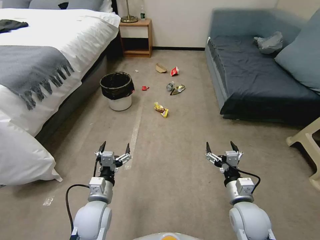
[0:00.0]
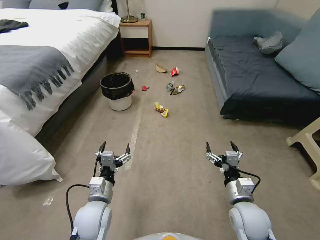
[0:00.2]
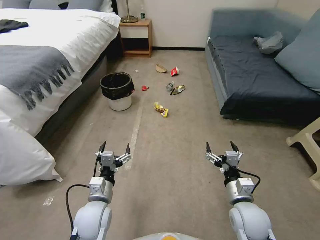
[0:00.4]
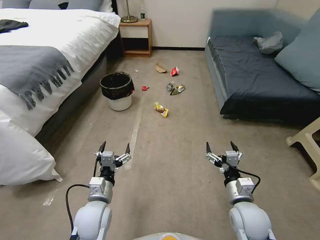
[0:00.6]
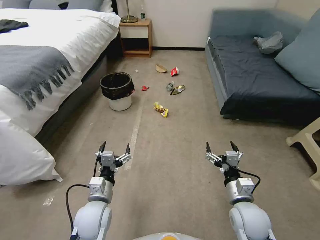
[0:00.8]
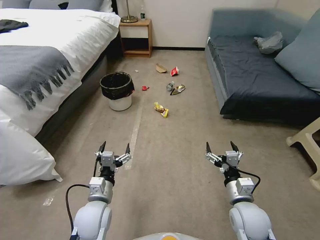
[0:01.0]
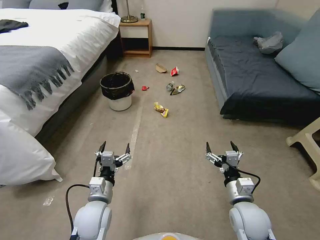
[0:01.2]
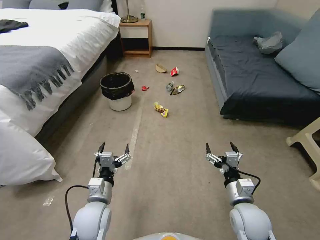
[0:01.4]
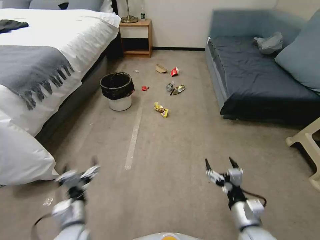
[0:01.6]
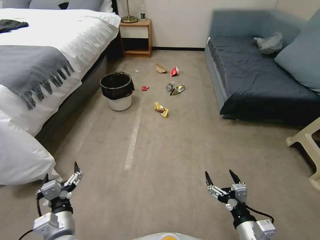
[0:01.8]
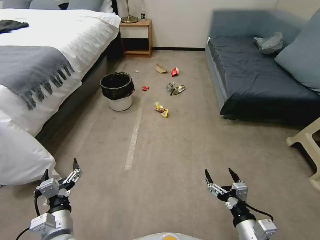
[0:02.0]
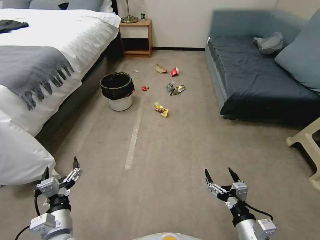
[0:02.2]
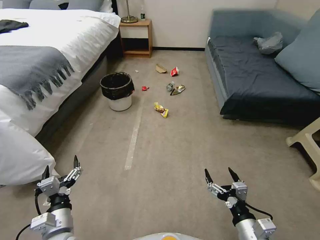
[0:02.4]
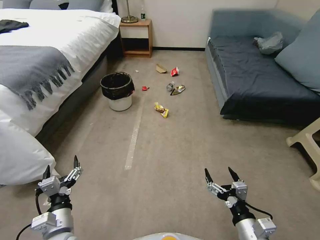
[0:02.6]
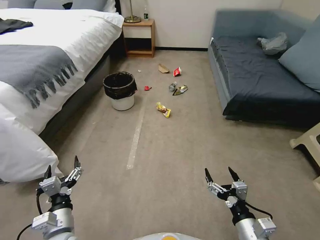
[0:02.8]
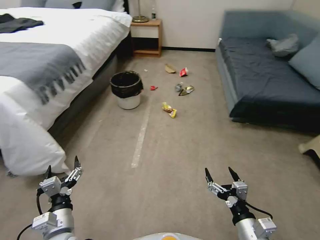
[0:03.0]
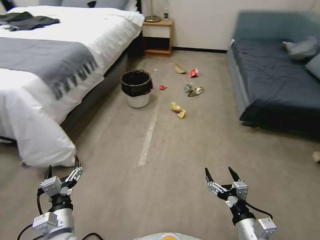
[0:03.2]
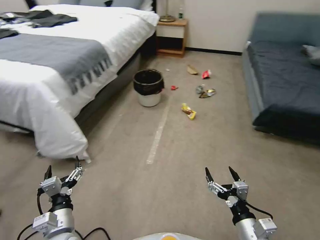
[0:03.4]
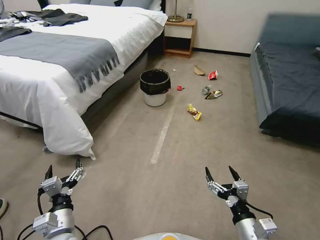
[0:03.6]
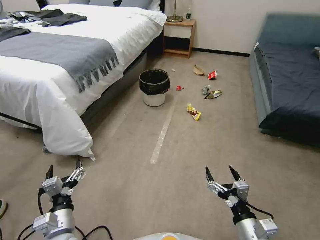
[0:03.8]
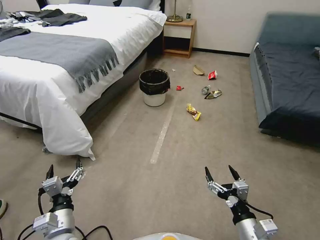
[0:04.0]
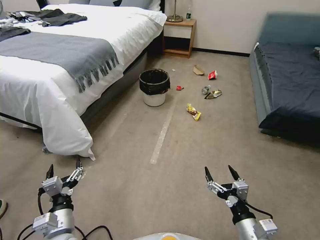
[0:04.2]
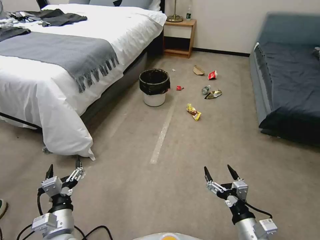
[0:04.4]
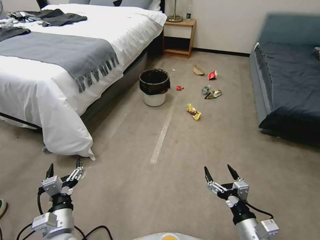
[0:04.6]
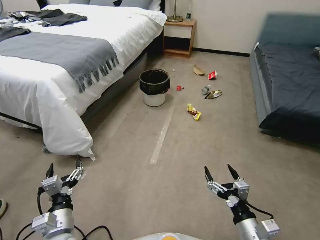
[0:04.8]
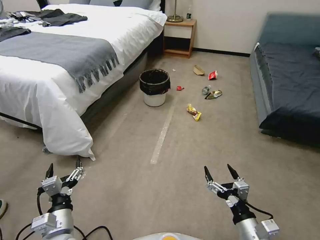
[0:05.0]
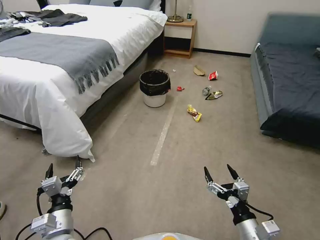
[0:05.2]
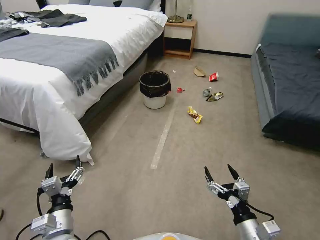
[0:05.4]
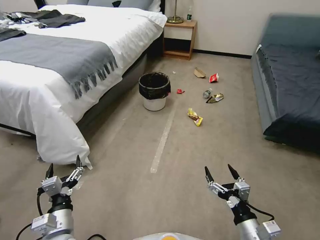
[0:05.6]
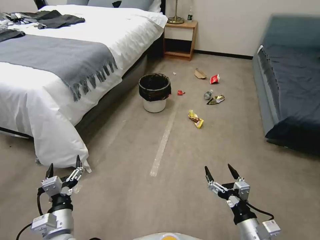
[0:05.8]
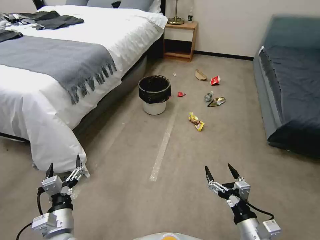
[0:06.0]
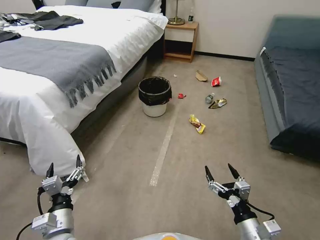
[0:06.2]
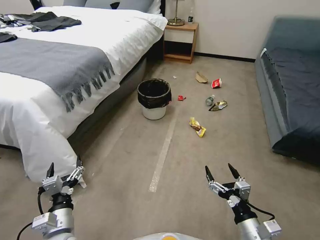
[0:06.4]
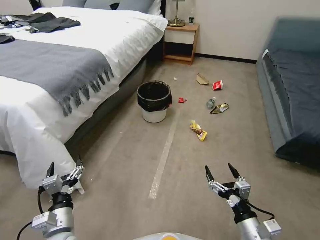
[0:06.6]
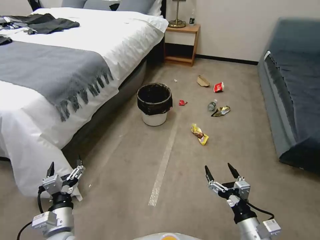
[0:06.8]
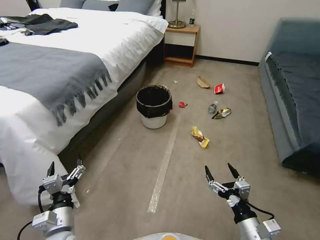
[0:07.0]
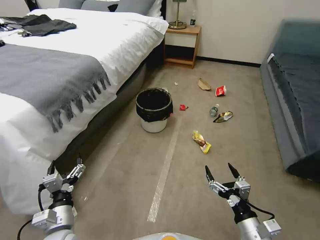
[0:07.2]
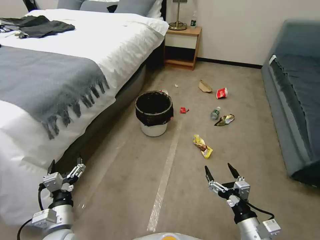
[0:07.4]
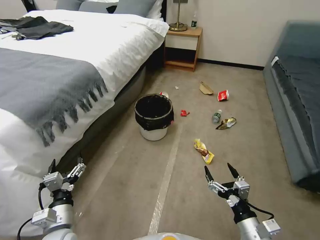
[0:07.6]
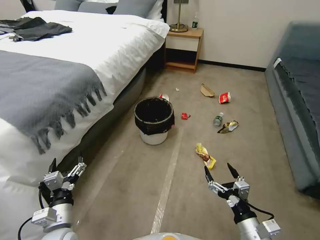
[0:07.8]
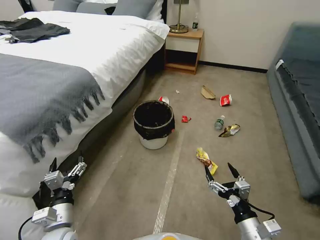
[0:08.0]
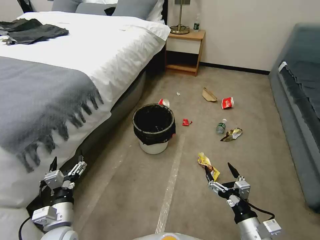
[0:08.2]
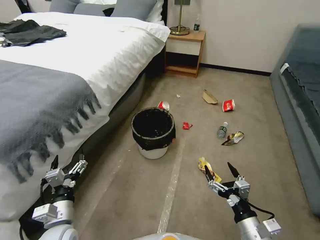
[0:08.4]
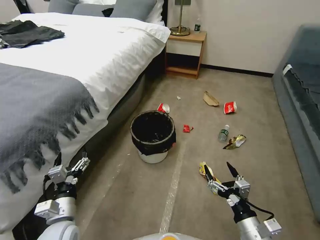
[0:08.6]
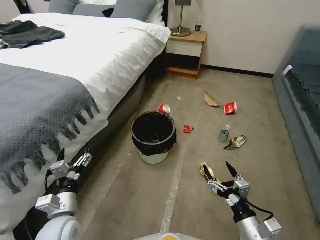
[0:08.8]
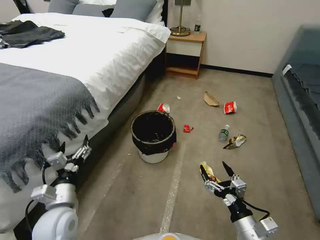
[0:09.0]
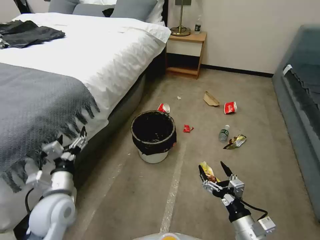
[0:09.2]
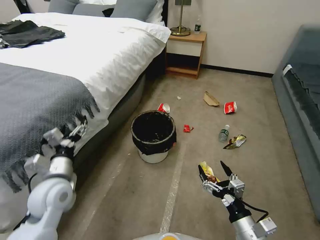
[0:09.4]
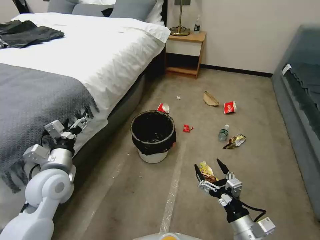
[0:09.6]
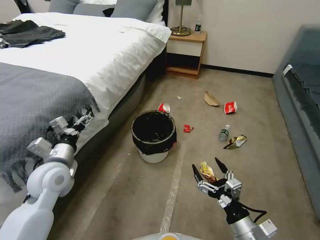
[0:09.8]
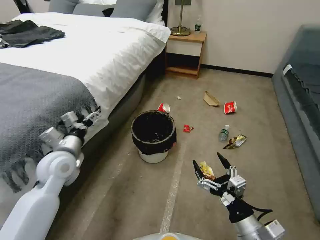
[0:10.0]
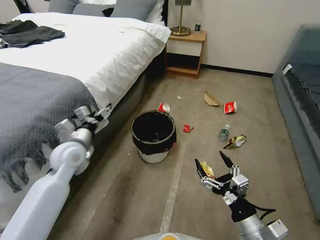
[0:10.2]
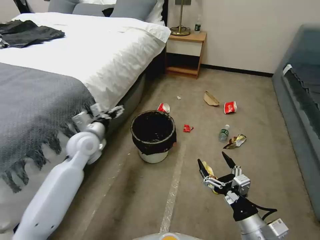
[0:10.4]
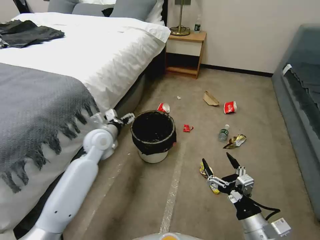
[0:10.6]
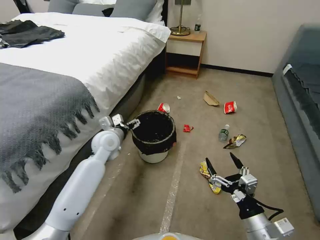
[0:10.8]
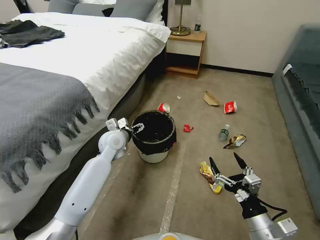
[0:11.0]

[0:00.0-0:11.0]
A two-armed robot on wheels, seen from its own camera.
Task of the whole recording: Pick up the trash can from the floor.
0:07.8 to 0:09.4: The left gripper heads upward and forward, covering roughly 15 cm.
0:09.4 to 0:11.0: The left gripper travels forward and to the right by some 20 cm.

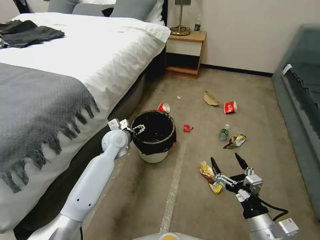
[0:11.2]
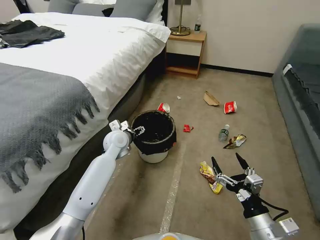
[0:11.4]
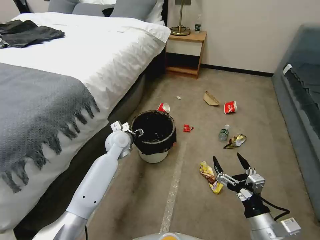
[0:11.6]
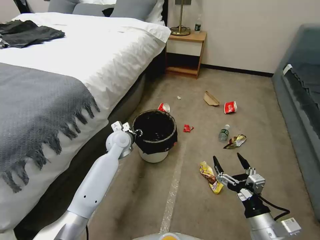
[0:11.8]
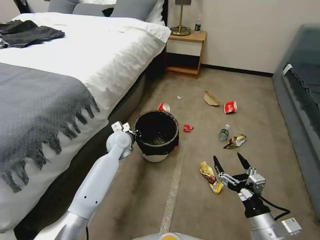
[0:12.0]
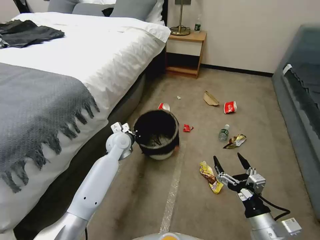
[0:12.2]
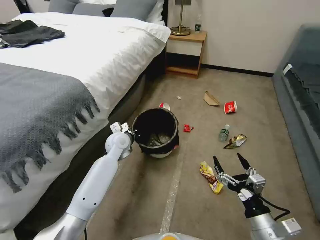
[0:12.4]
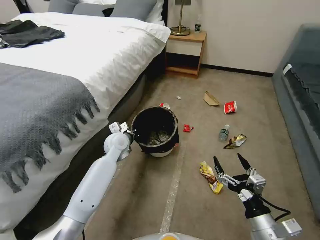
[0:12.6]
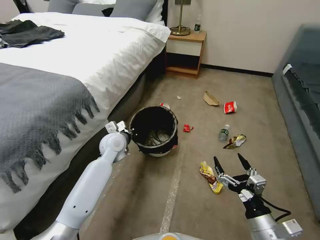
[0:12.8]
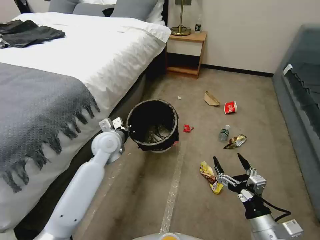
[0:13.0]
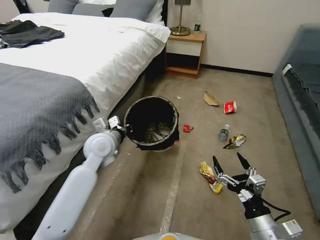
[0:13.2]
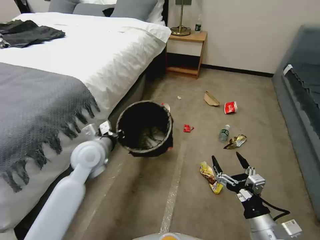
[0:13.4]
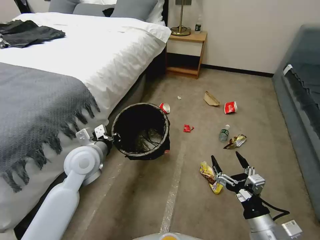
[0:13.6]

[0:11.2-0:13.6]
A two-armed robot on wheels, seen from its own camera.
Task of the whole recording: Pick up the trash can from the floor.
0:11.2 to 0:12.4: The left gripper closes its fingers.
0:12.4 to 0:13.6: The left gripper shifts approximately 15 cm backward, upward and to the left.
